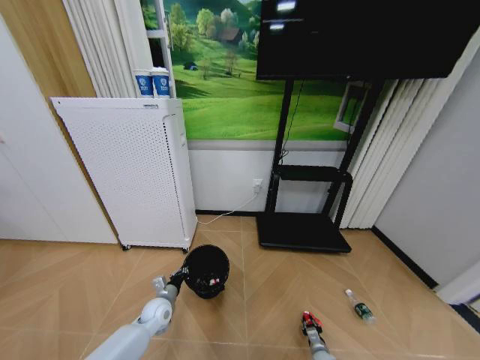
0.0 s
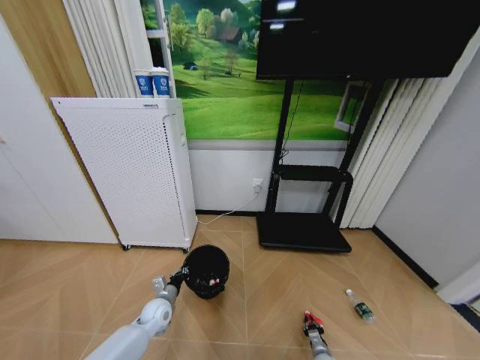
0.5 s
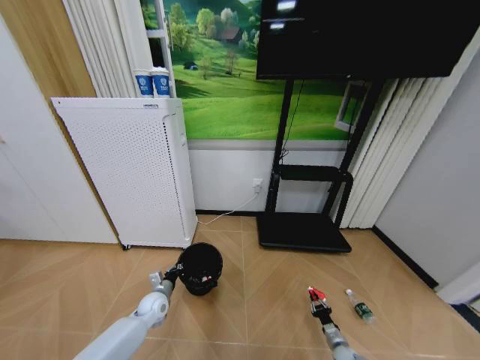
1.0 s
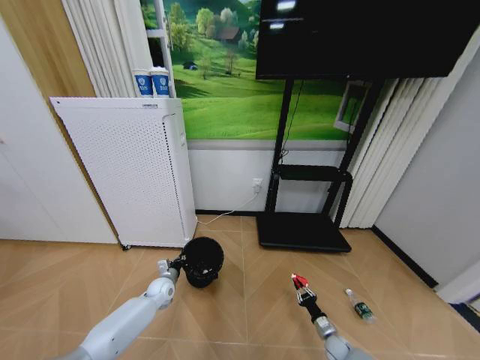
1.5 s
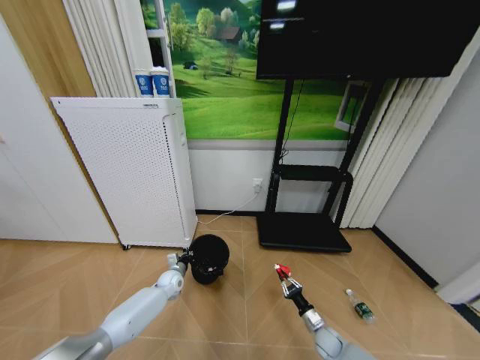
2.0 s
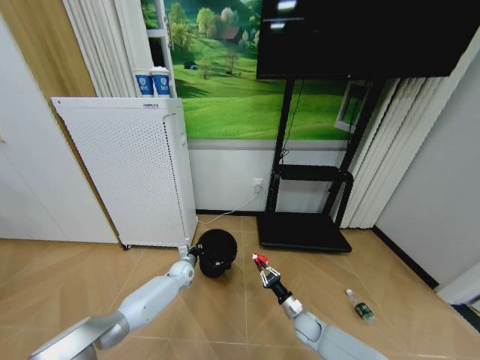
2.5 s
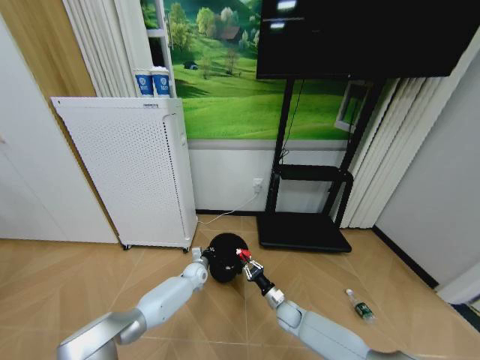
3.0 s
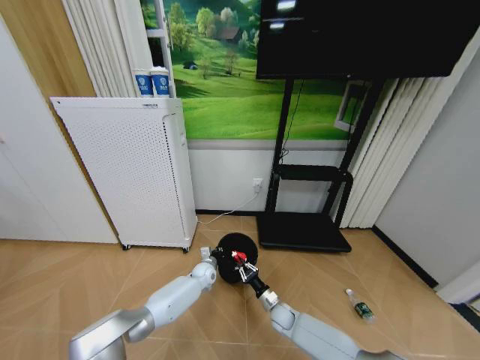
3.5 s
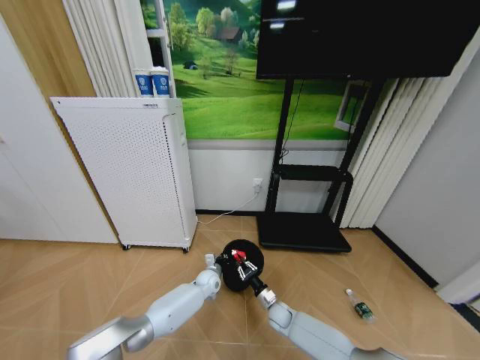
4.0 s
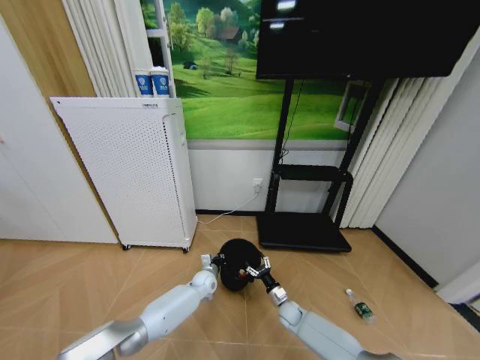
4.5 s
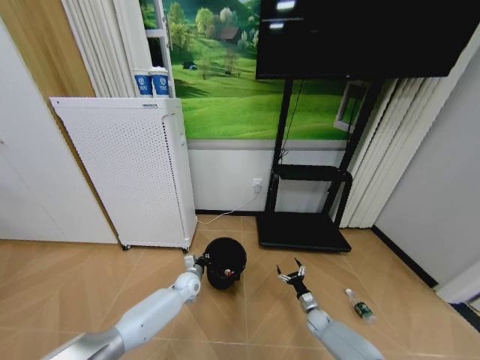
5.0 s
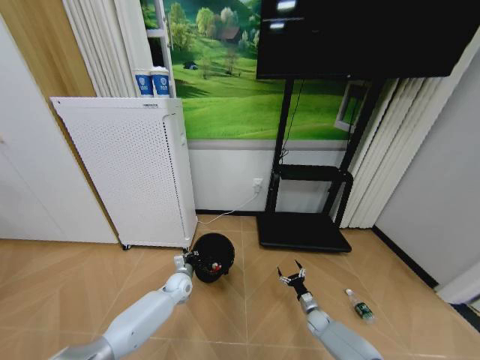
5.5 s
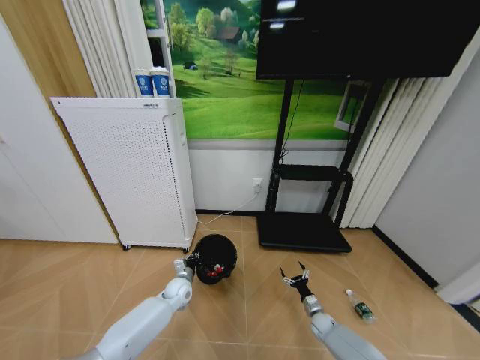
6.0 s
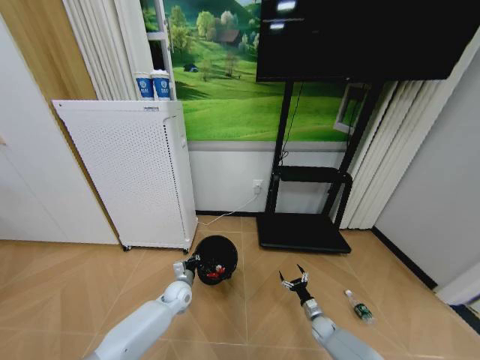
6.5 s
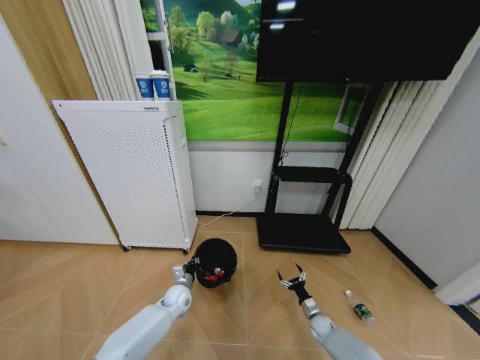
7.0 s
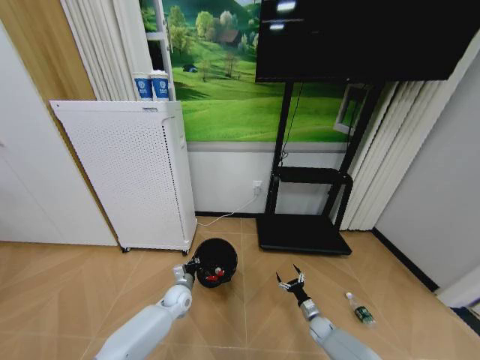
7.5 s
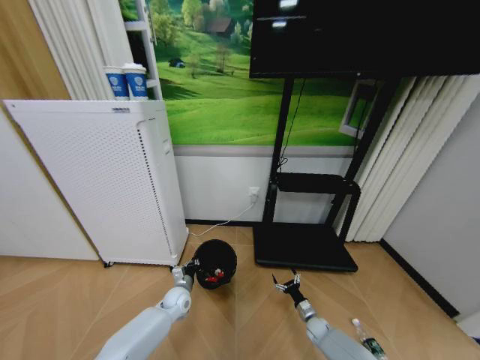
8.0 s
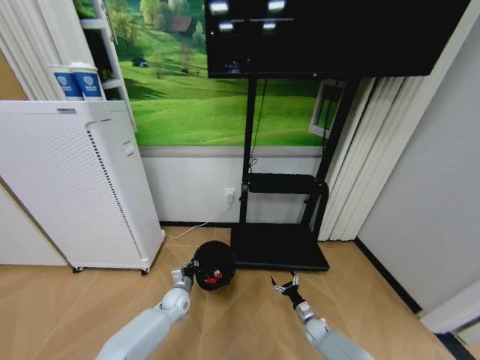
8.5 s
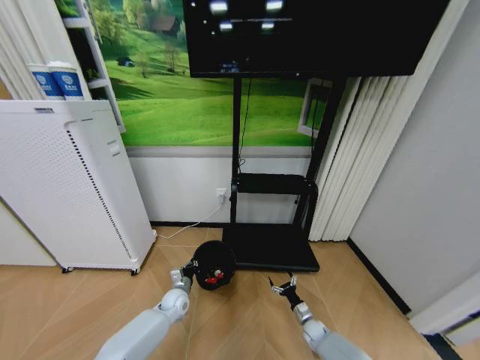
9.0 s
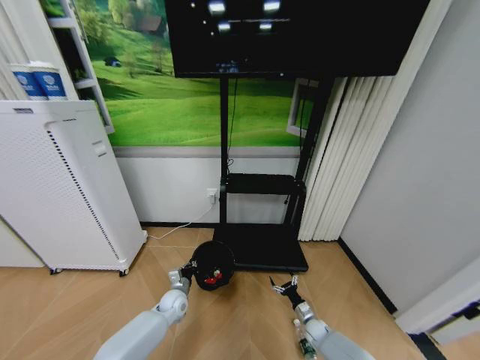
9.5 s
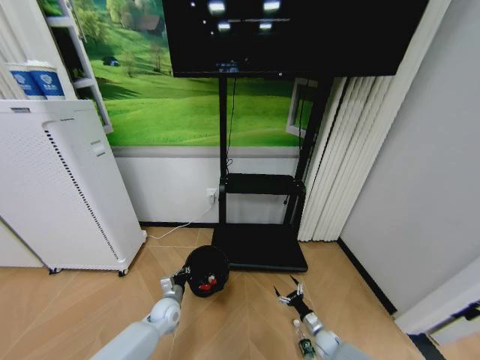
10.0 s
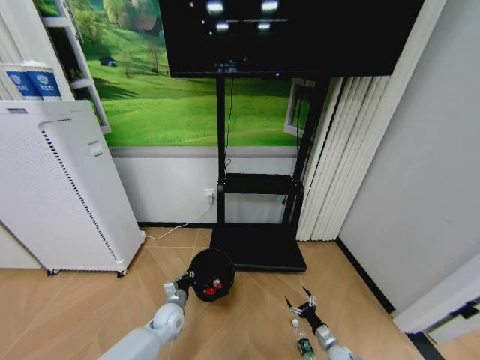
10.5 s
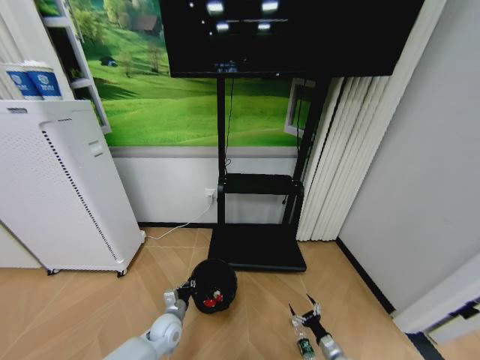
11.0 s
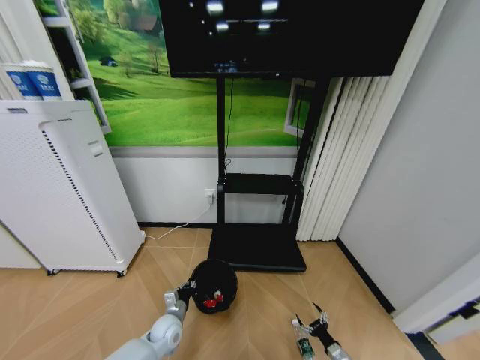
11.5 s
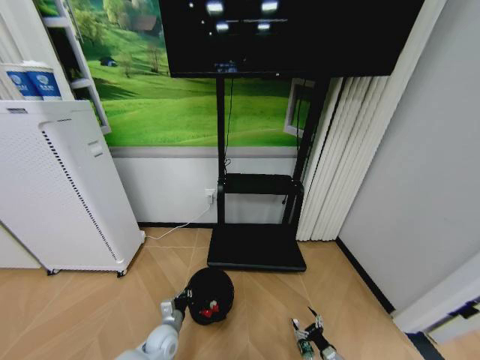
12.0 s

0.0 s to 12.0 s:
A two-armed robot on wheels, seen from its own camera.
Task of the whole recording: Pick up the trash bin and place the garbage on the floor into it.
0.0 to 2.0 s: The right gripper moves upward, about 15 cm, while the left gripper heads forward, covering some 10 cm.
2.0 to 4.0 s: The left gripper is displaced to the right by roughly 15 cm. The right gripper is displaced to the left and forward by roughly 15 cm.
4.0 to 6.0 s: The left gripper is displaced to the left by about 10 cm. The right gripper travels to the right by approximately 20 cm, and opens.
8.0 to 10.0 s: The left gripper ends up about 5 cm from where it was.
10.0 to 12.0 s: Both grippers travel together backward, roughly 10 cm.

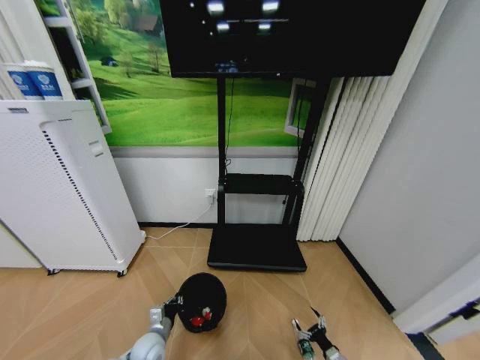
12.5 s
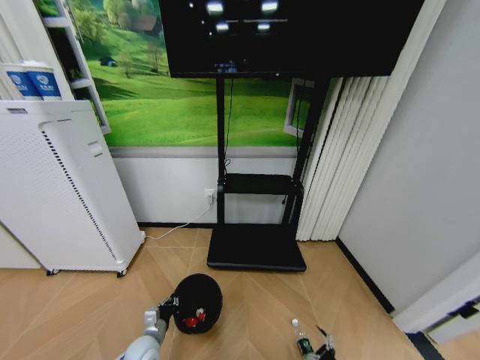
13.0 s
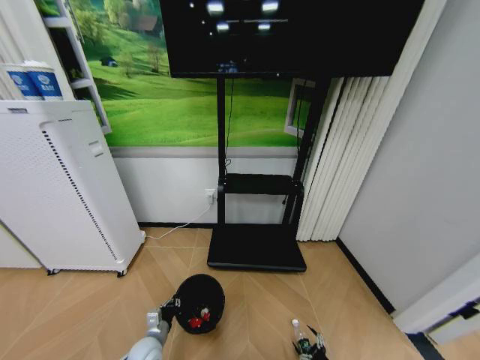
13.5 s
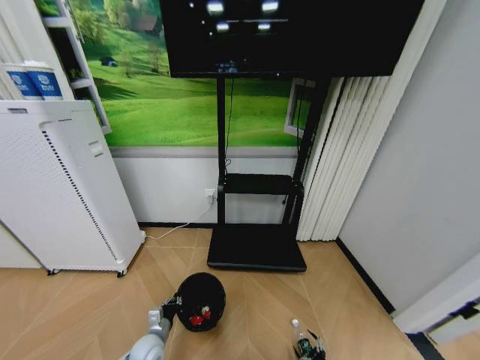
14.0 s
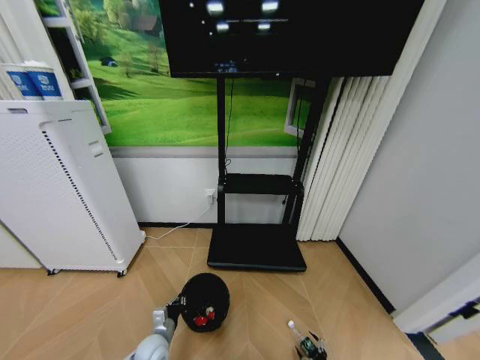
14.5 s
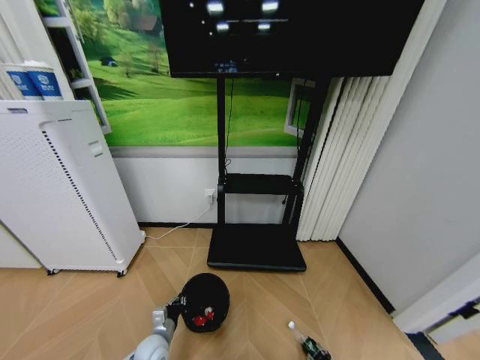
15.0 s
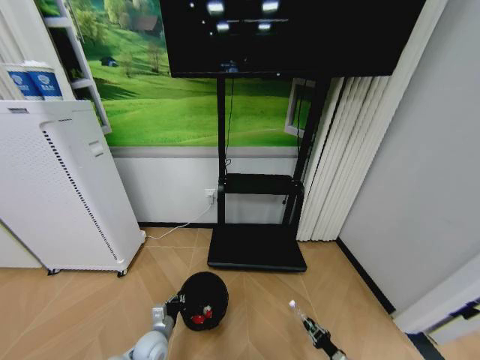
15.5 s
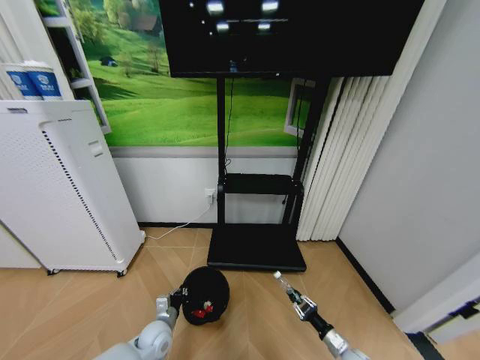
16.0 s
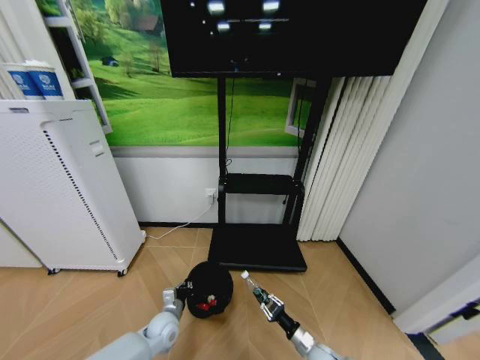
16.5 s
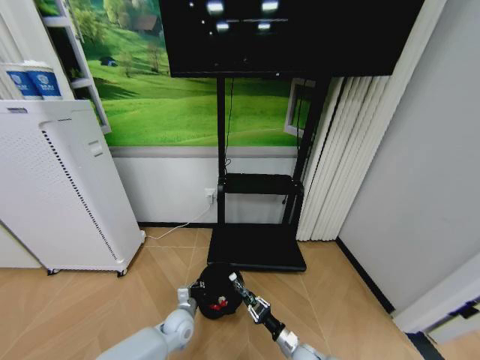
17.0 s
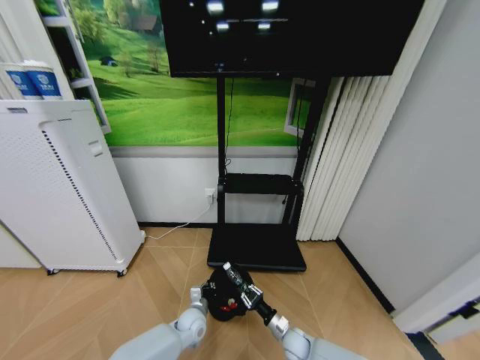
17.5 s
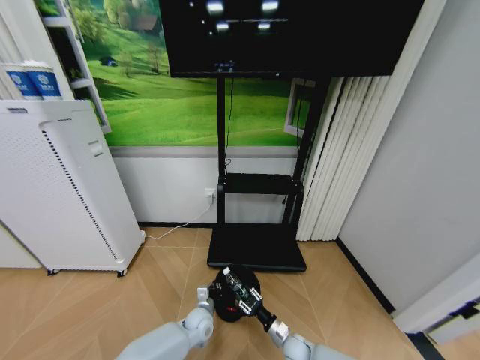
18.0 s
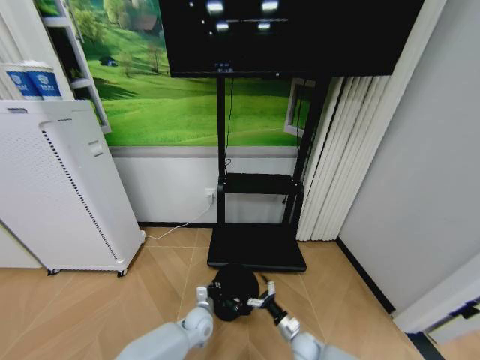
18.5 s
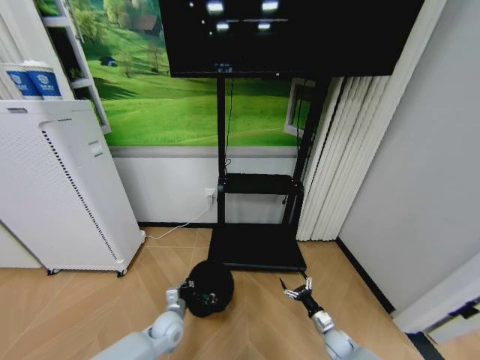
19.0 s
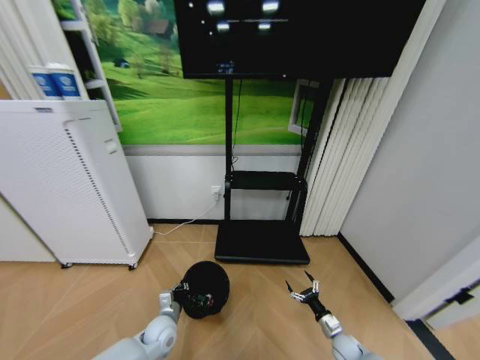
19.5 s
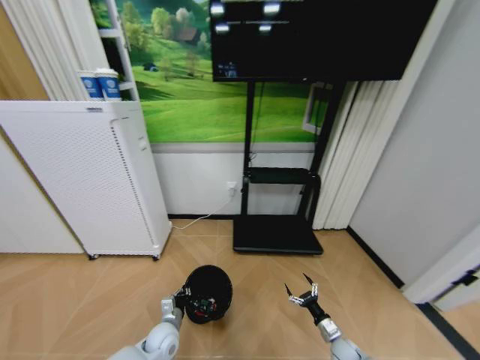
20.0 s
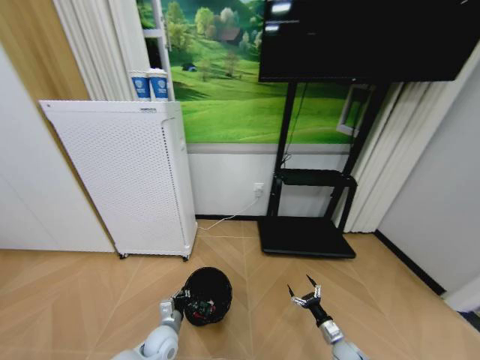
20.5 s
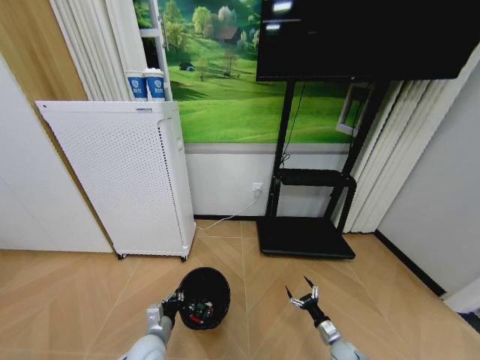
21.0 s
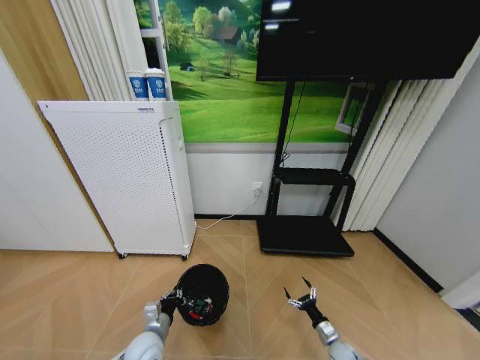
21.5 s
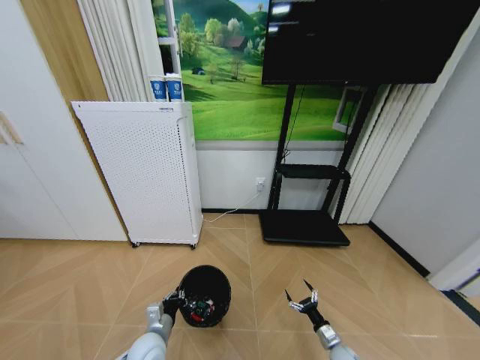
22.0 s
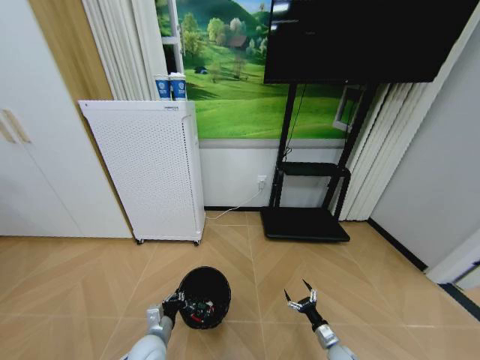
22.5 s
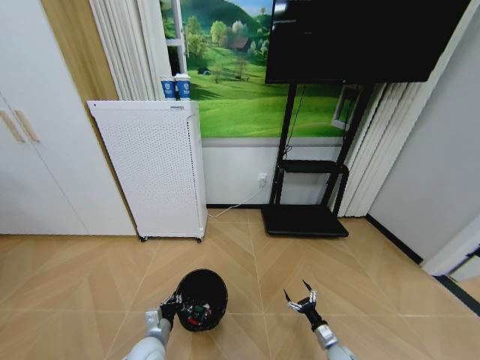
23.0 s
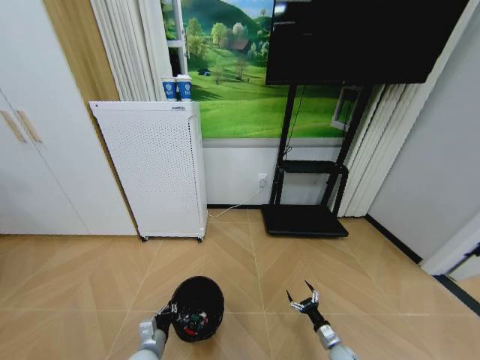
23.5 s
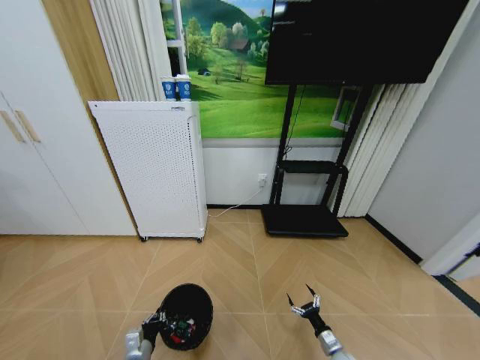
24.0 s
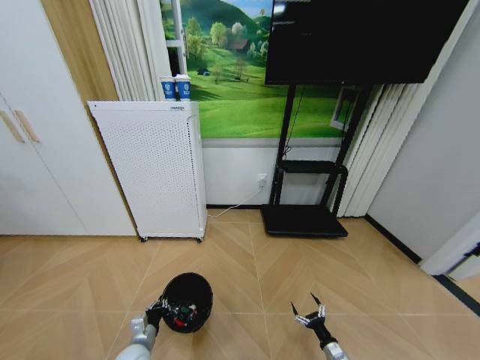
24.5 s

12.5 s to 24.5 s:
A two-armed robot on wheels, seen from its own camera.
Task of the whole recording: Pick up the trash bin and place the garbage on the floor into it.
12.5 to 14.5 s: The right gripper changes place by approximately 5 cm.
14.5 to 16.5 s: The right gripper travels upward, to the left and forward by roughly 20 cm, and closes up. Meanwhile the left gripper is displaced forward by about 5 cm.
16.5 to 18.5 s: The right gripper opens; the left gripper travels to the right by about 10 cm.
18.5 to 20.5 s: The left gripper heads to the left and backward, covering approximately 10 cm, while the right gripper heads to the right, covering some 15 cm.
20.5 to 22.5 s: The left gripper ends up roughly 5 cm from where it was.
22.5 to 24.5 s: The right gripper goes approximately 5 cm backward; the left gripper travels to the left and downward by some 10 cm.

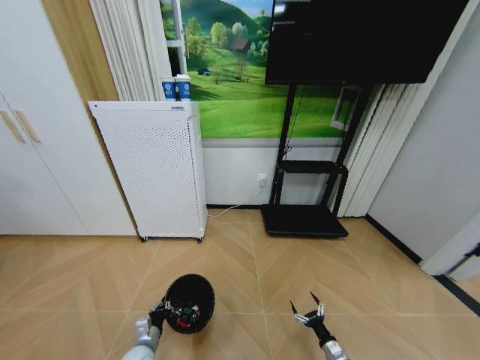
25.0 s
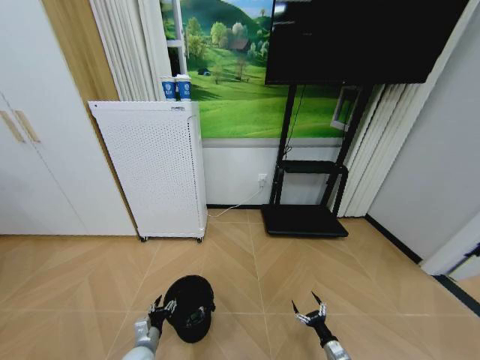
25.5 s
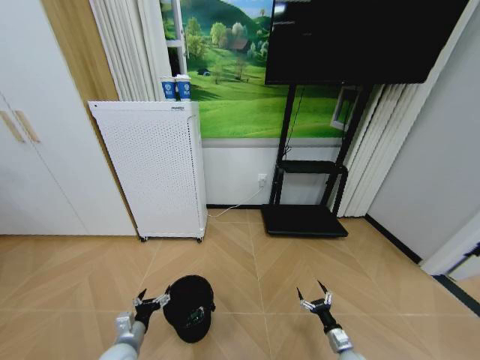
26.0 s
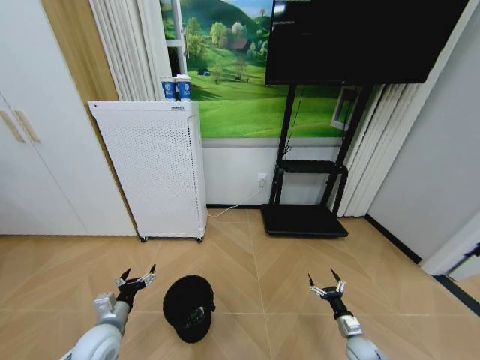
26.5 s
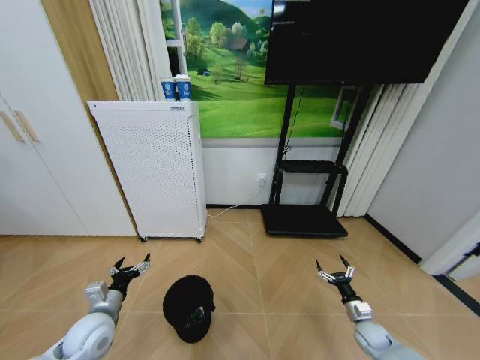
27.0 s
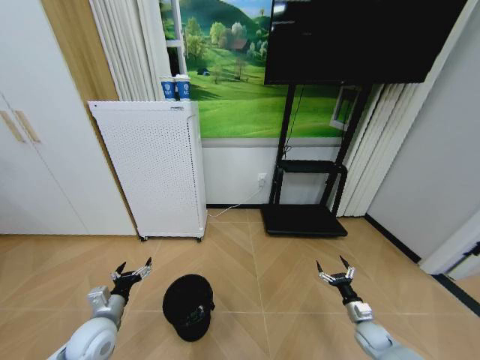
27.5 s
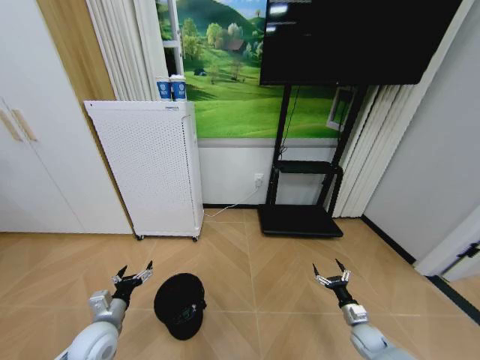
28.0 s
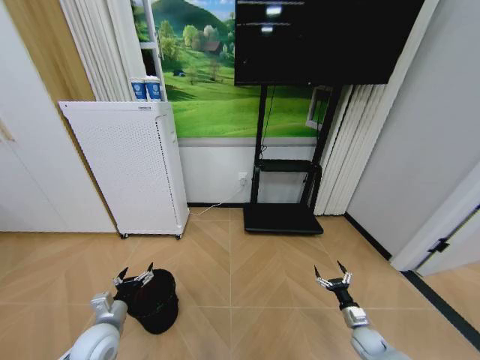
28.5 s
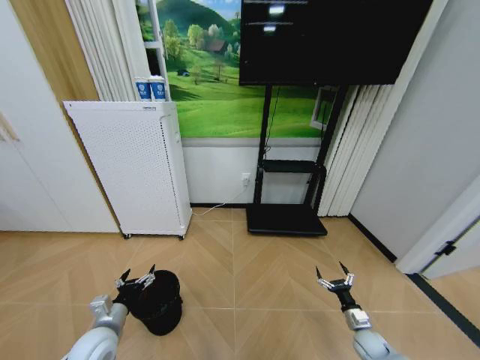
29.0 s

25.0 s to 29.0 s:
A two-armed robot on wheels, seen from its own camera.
Task of the whole recording: Pick up the trash bin and place the garbage on the floor into it.
25.0 to 27.0 s: The right gripper travels upward, forward and to the right by about 15 cm. Meanwhile the left gripper is displaced upward and to the left by roughly 20 cm, and opens.
